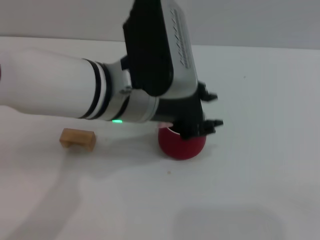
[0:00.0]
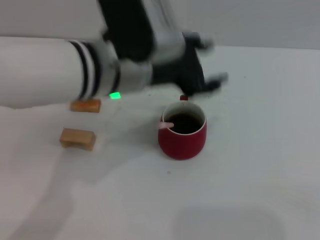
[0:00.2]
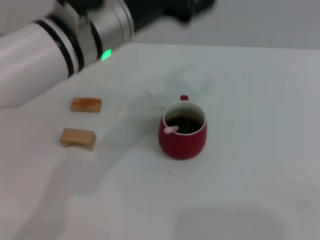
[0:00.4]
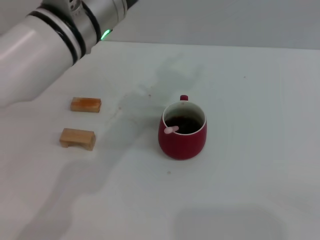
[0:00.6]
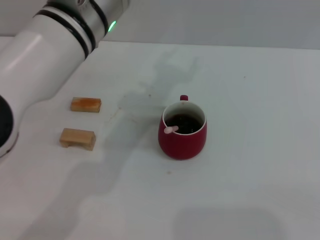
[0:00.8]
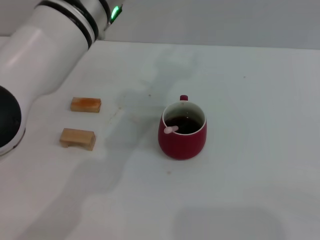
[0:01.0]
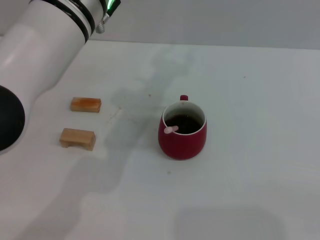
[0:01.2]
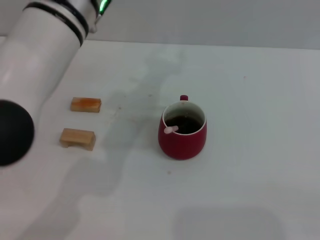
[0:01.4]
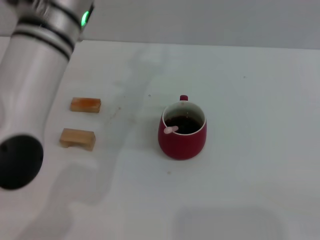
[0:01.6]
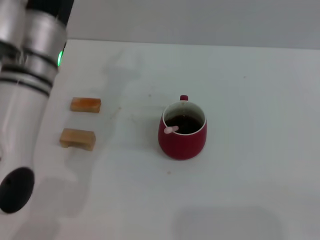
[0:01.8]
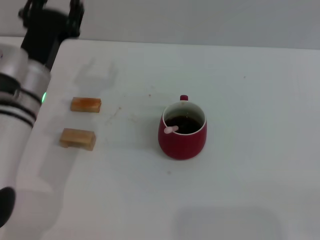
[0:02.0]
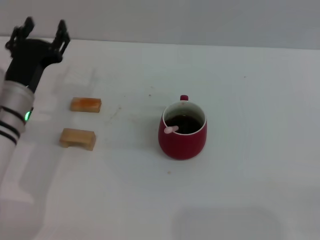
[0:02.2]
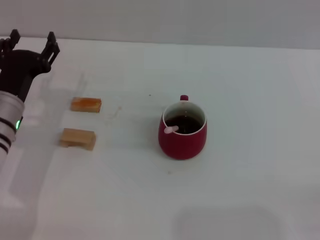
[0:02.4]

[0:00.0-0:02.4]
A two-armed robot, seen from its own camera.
Task of the whole recording: Move the red cup to the center, lift the pink spoon, stir it three times in the cup, and put the spoon into the cup.
0:00.0 to 0:01.2: The left gripper travels upward by roughly 5 cm, and opens.
0:01.2 to 0:02.4: The left gripper shifts approximately 25 cm downward and to the left.
